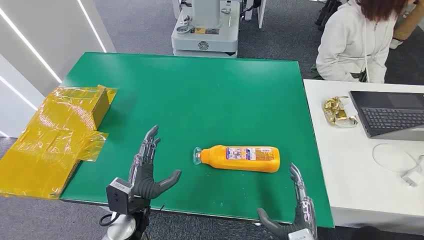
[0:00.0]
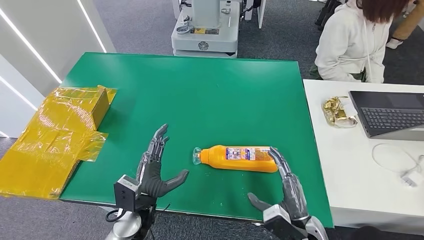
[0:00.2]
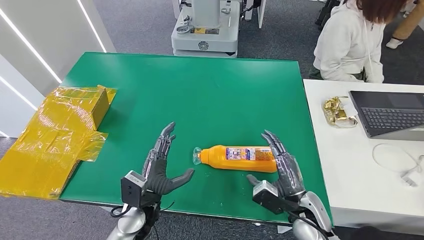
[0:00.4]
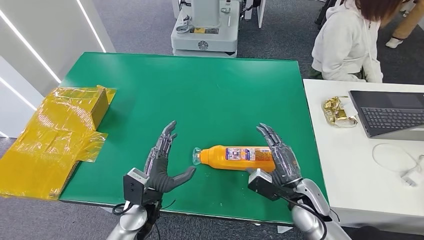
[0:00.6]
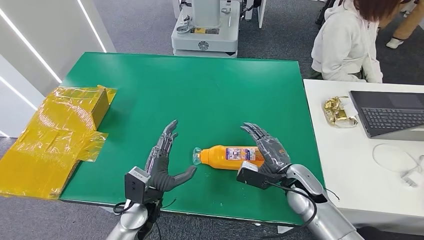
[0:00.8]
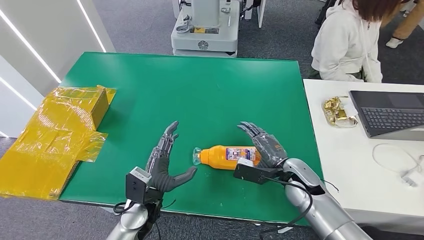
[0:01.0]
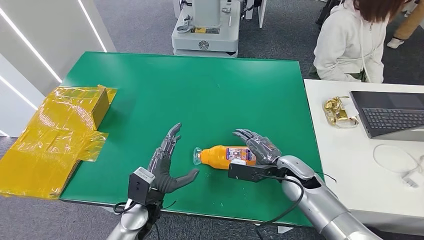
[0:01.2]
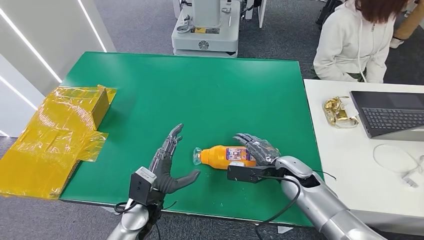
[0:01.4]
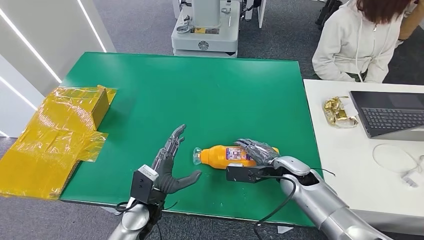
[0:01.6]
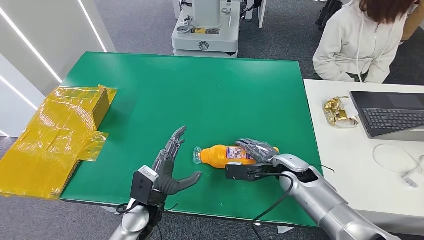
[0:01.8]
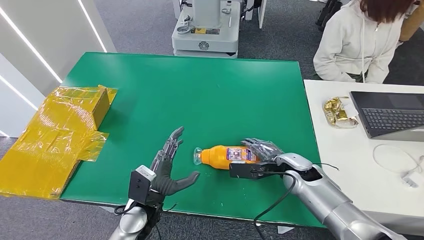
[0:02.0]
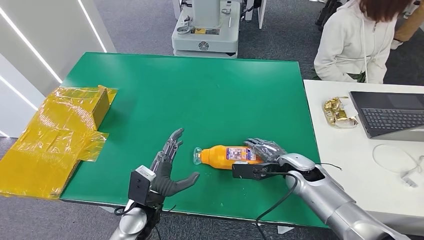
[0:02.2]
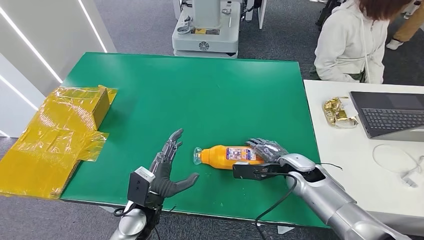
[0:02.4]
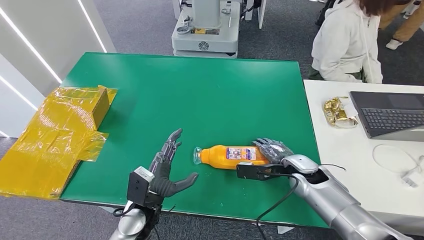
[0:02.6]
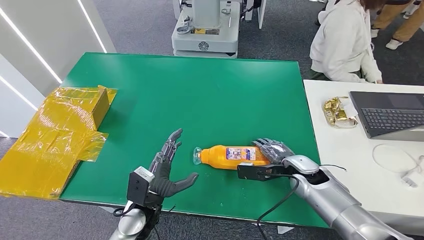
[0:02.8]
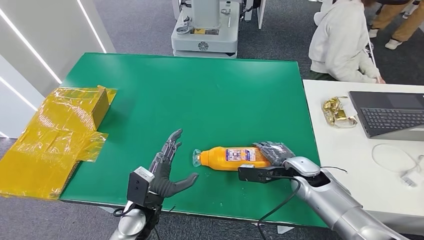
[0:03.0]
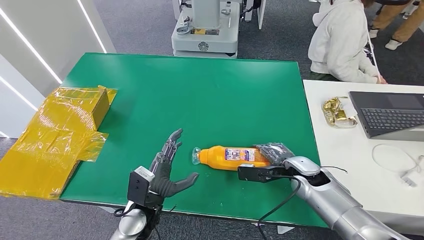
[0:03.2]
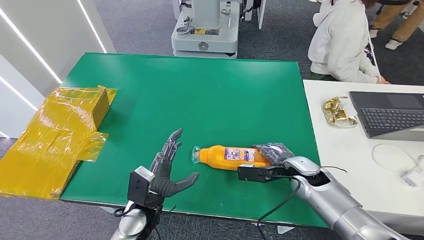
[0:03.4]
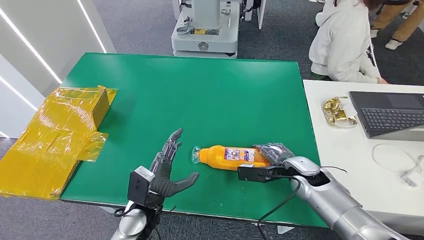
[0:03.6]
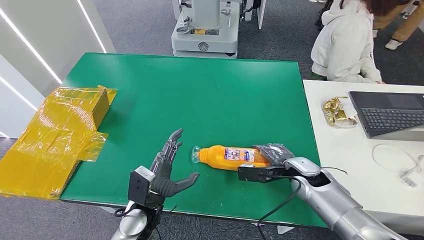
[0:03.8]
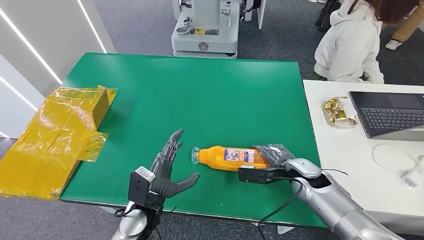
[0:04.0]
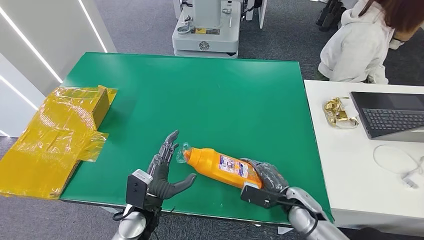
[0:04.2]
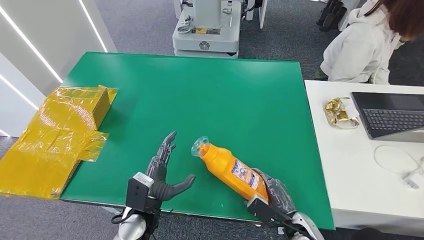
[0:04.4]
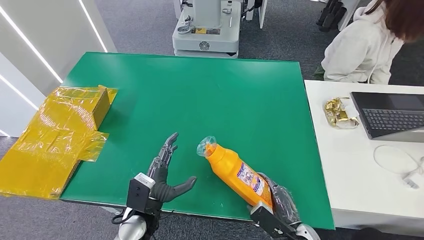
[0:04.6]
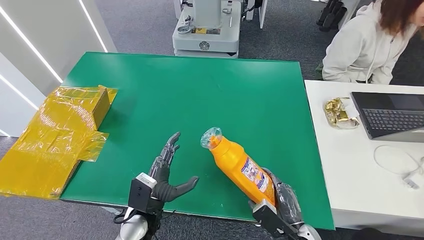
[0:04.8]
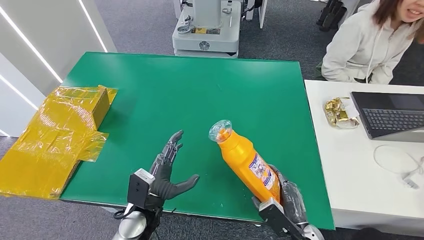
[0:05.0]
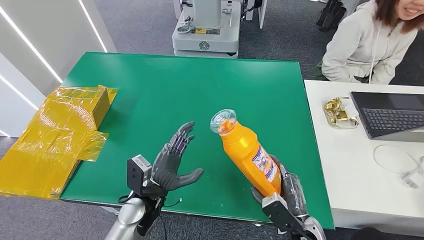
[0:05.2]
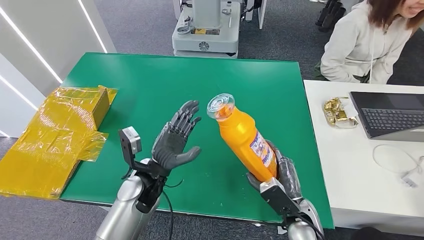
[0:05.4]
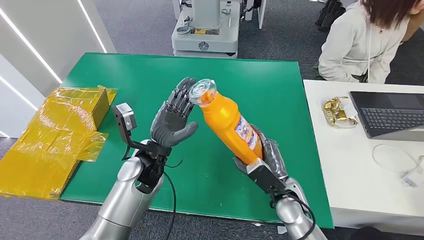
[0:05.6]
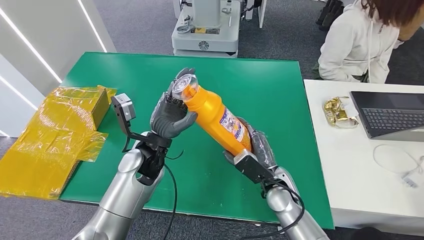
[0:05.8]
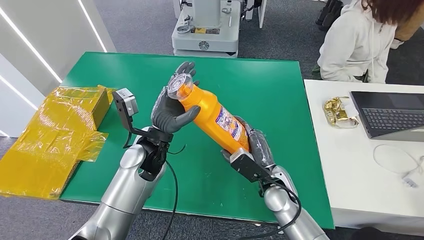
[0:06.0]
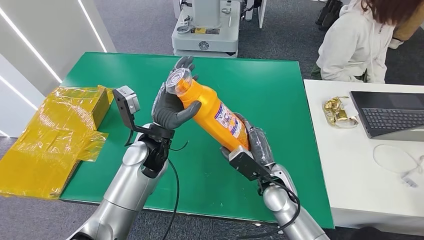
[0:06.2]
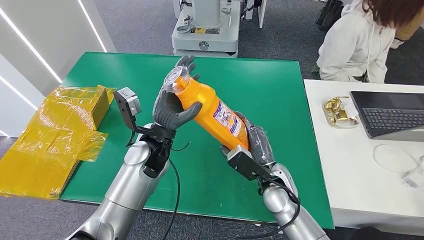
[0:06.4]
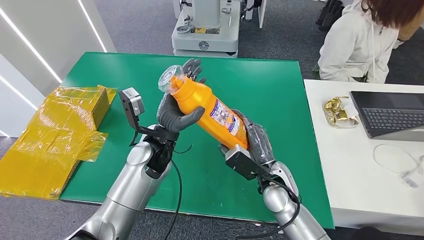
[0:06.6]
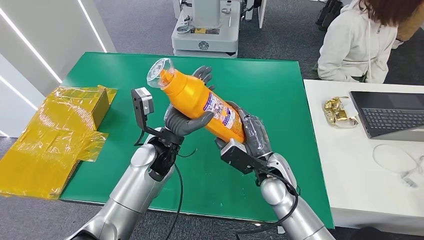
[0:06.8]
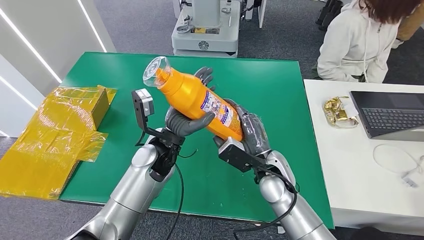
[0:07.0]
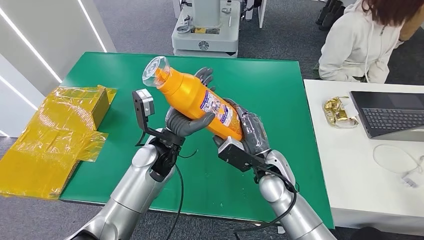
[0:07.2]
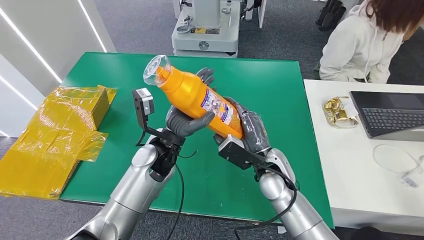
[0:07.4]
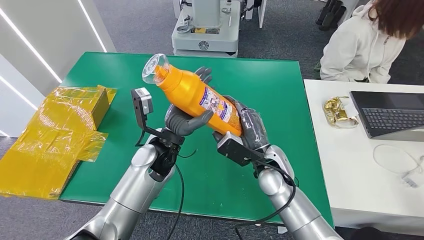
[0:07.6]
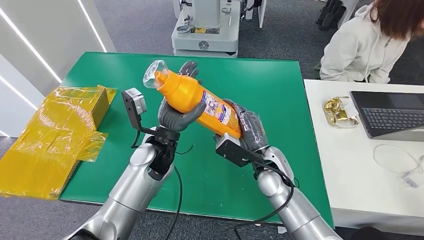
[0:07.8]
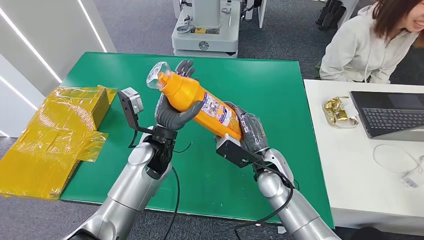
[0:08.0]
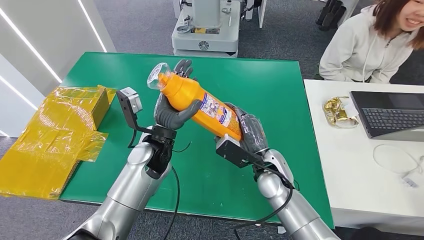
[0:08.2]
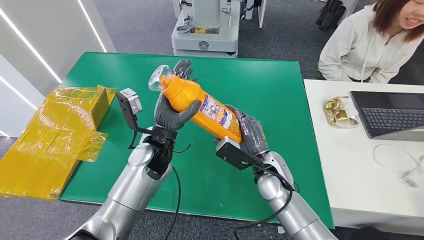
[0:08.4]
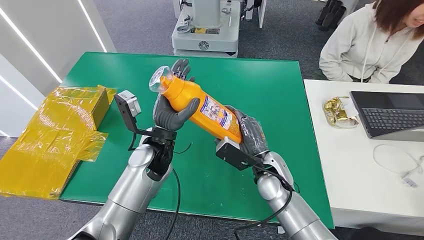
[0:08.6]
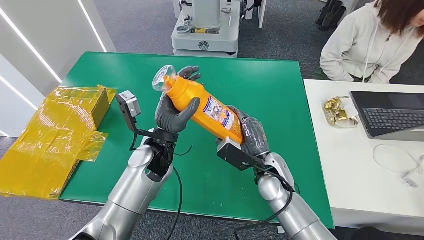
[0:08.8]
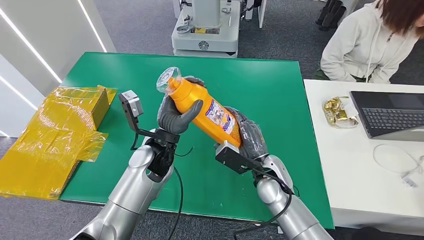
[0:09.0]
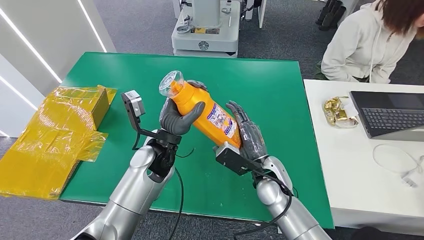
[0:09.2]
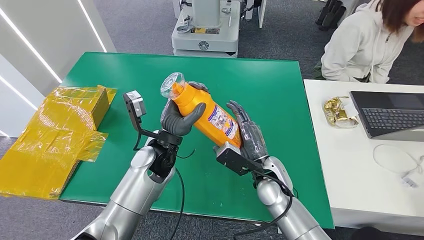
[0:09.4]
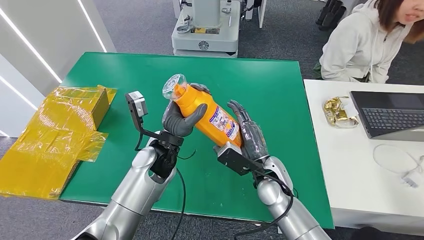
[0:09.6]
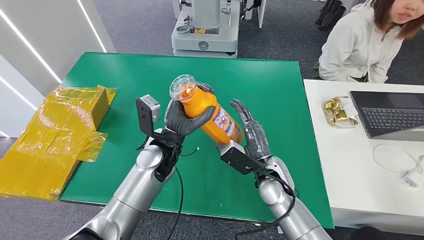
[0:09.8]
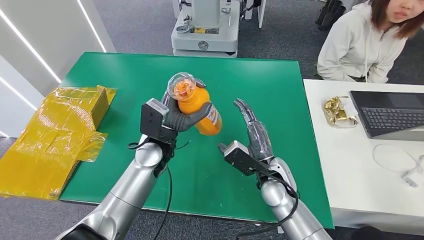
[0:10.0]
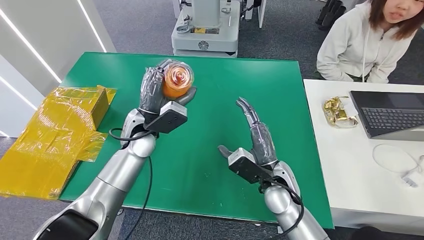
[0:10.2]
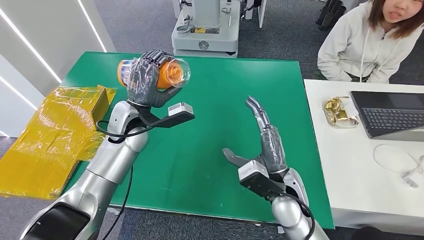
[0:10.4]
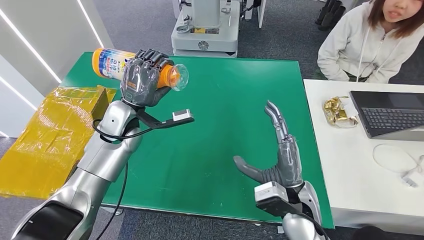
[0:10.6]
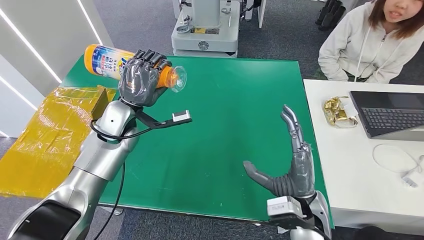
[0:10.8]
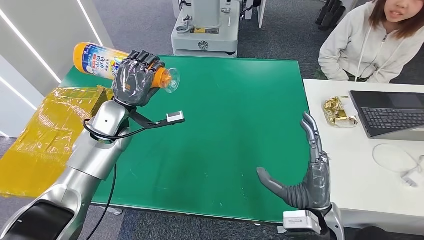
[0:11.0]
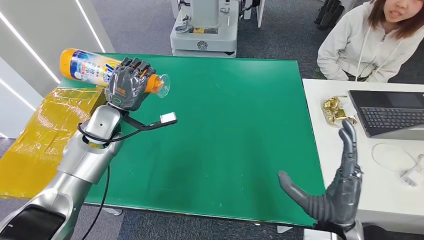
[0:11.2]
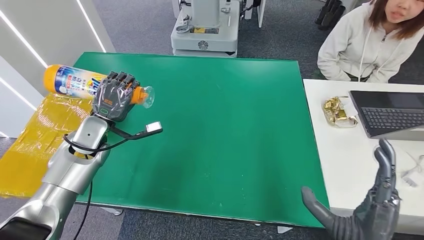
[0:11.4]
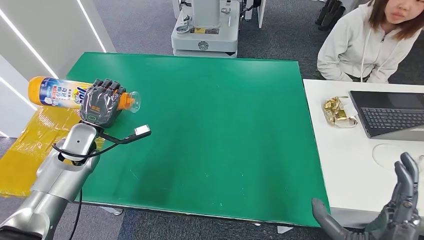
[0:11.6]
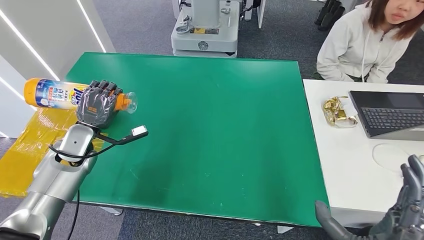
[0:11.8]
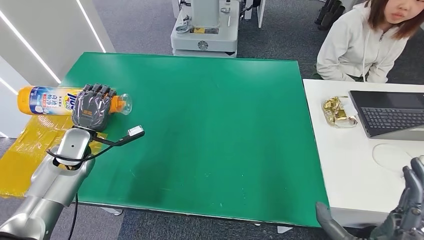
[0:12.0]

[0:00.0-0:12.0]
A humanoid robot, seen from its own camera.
Step, 0:00.0 to 0:05.2: Pick up the bottle from the table.
0:01.6 to 0:03.0: The hands move only a little.
0:06.0 to 0:07.6: The right hand shifts some 5 cm upward.
0:07.6 to 0:09.0: The hands make only small movements.

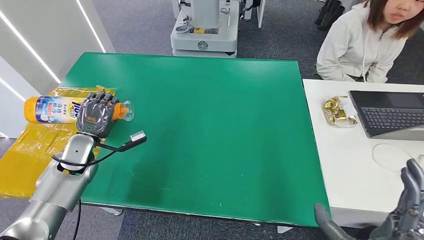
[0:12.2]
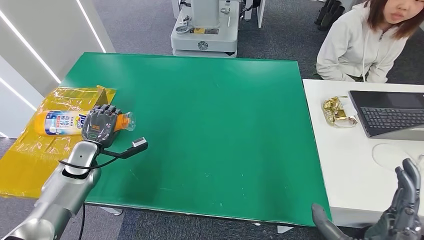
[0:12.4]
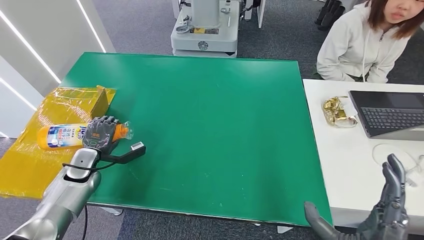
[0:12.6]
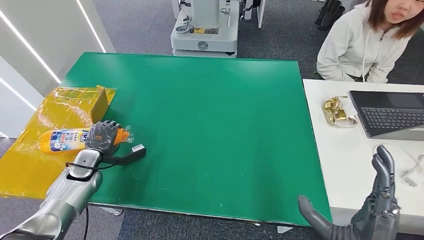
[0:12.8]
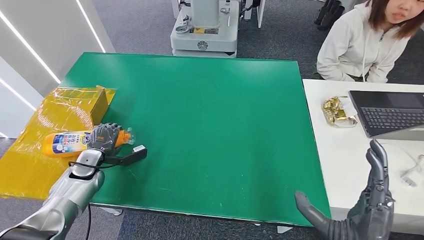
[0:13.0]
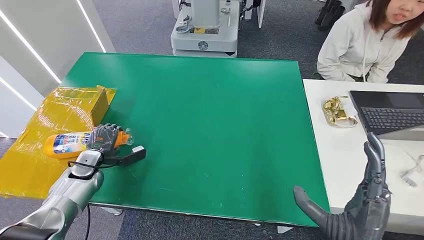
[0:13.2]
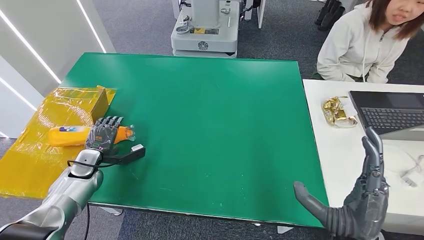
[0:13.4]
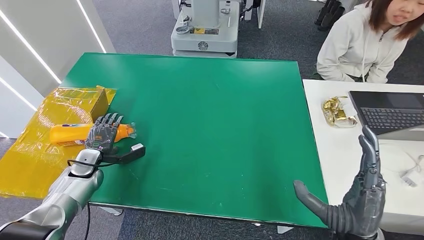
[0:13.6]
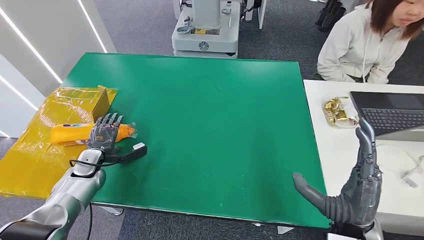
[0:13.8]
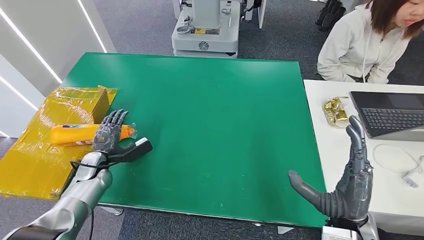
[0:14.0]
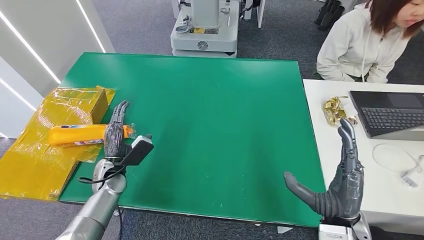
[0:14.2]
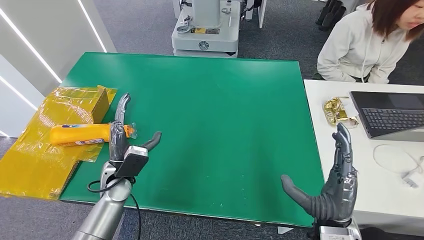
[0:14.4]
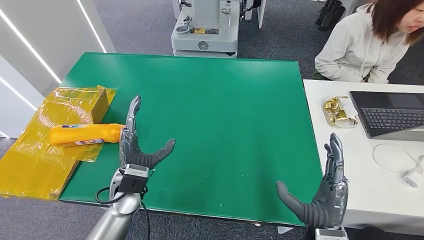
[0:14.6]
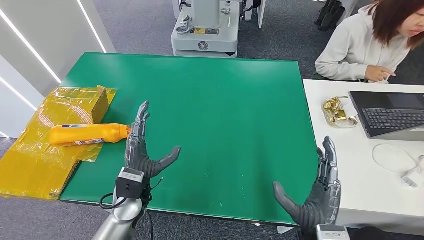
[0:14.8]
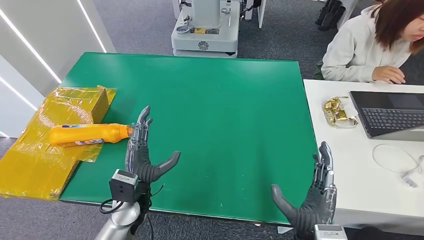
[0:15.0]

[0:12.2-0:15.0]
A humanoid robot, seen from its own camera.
Step, 0:12.2 to 0:15.0: Turn the bottle to the front side.
0:12.2 to 0:13.6: The left hand shifts roughly 10 cm downward. The right hand moves forward, approximately 5 cm.
0:13.6 to 0:15.0: The left hand heads to the right and backward, covering roughly 25 cm; the right hand moves downward and to the left, approximately 10 cm.
